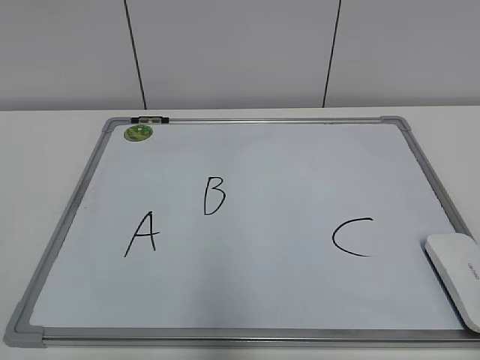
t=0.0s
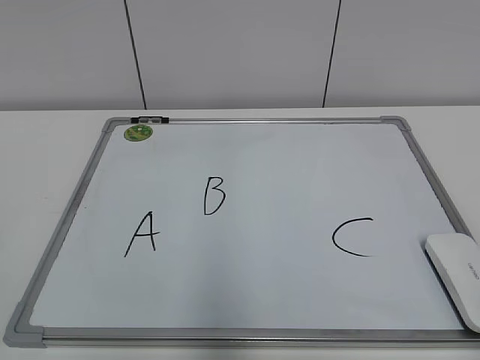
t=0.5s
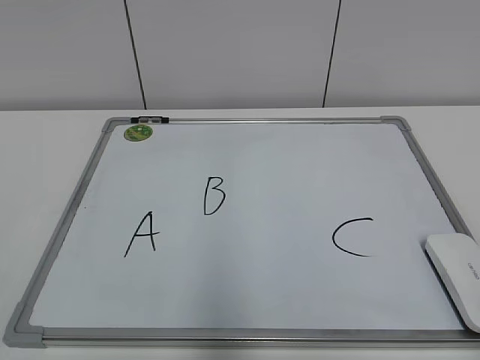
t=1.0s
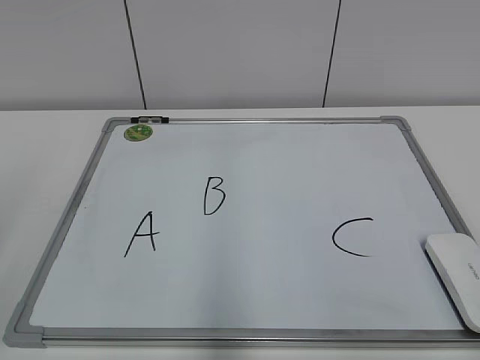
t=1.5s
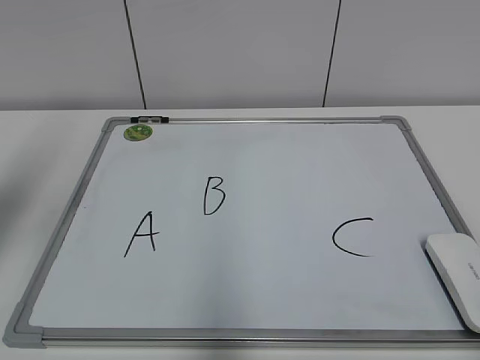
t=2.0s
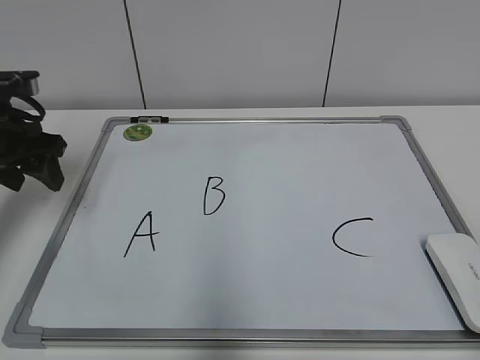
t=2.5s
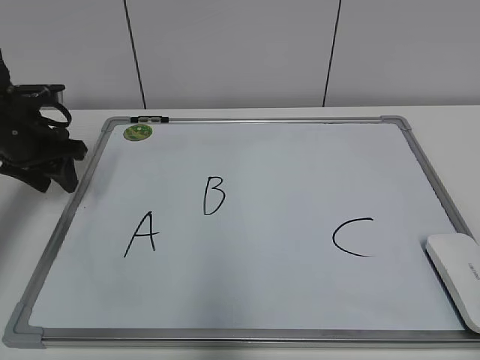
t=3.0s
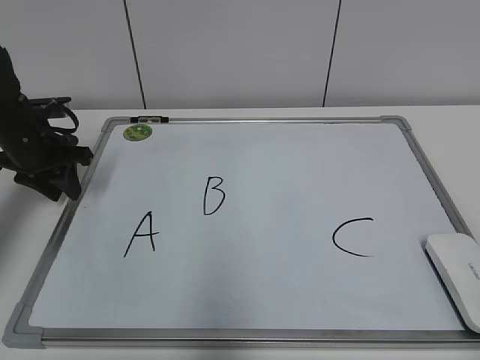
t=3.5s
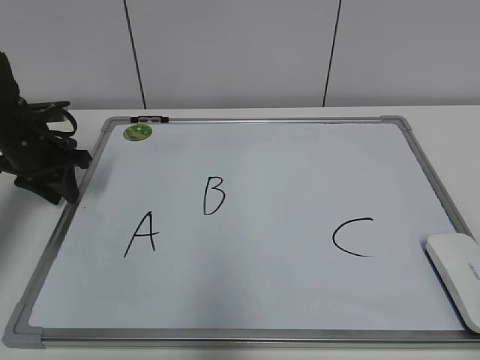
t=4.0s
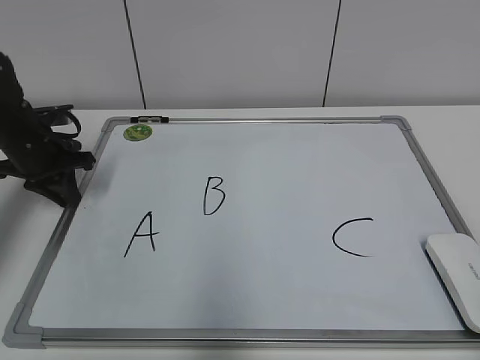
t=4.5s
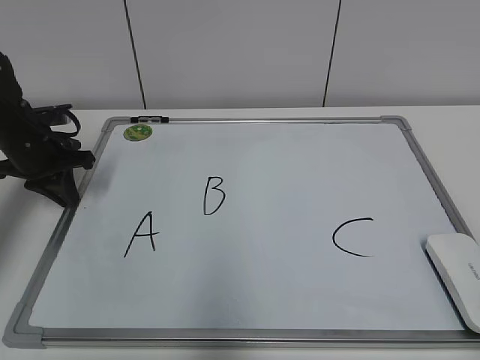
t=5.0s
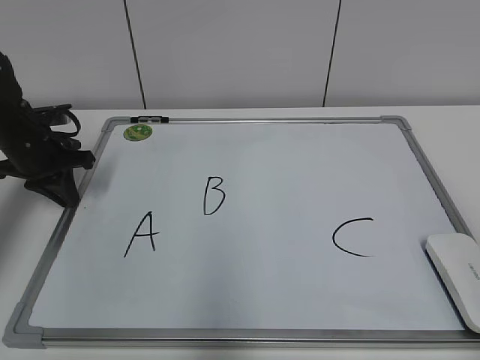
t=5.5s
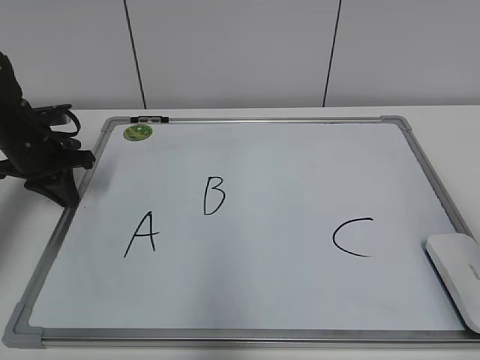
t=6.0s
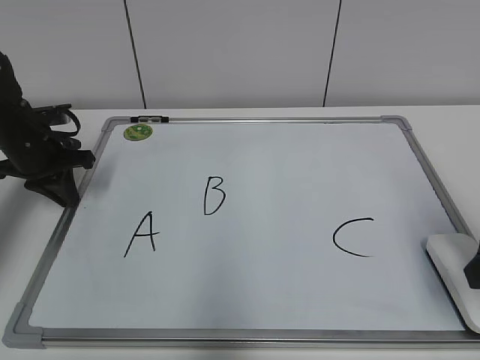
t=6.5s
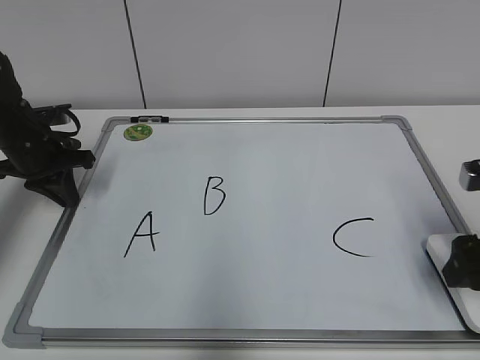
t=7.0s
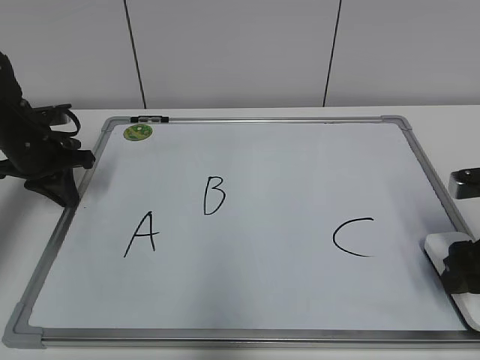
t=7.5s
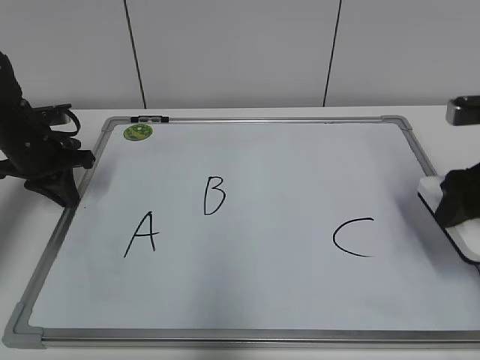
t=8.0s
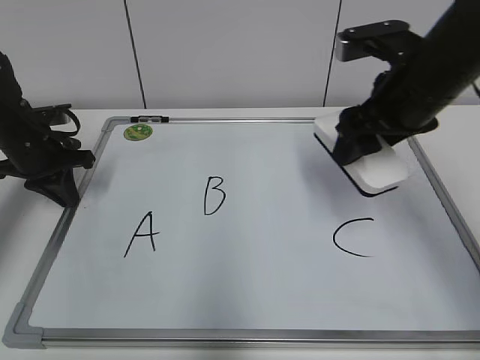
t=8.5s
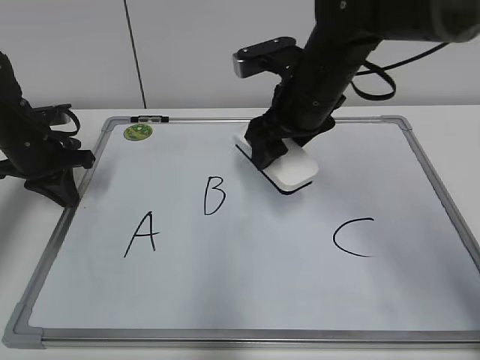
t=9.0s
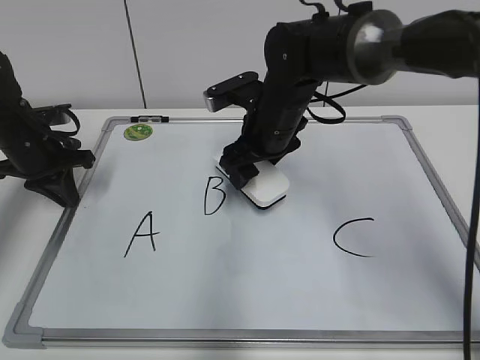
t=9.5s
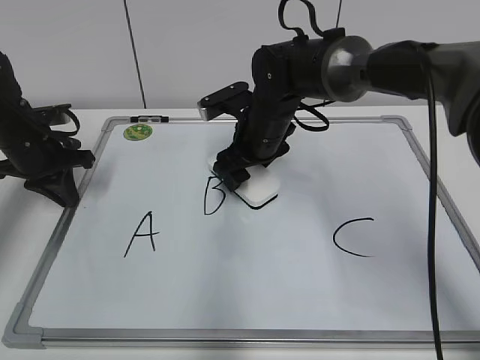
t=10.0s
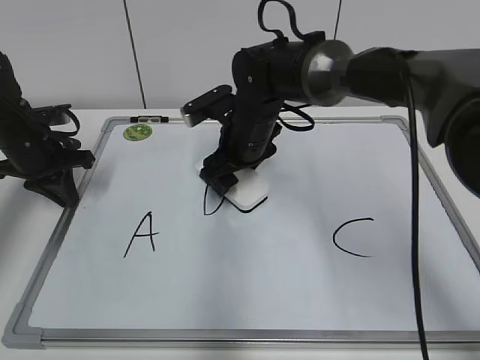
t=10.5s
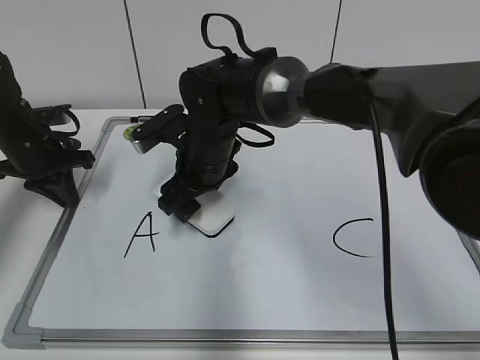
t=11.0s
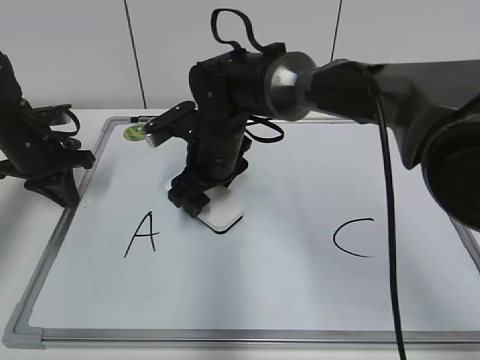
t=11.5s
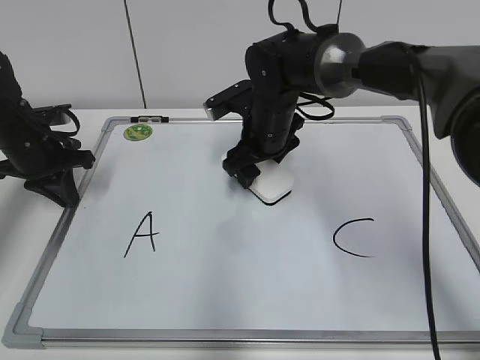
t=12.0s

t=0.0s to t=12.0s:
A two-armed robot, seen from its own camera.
Task of the whole recording: pick up the eraser on the blackboard and erase the letter "B".
Step, t=0.0s to t=4.0s: Hold the drawing board steady with your left hand.
Step, t=4.5s to t=7.0s: Grab the eraser with your right hand.
Step, t=7.5s to t=12.0s: Erase the letter B with your right hand.
t=2.0s to t=4.0s: The left gripper goes some 25 cm downward and forward, and closes up.
t=6.0s to t=8.0s: The right gripper moves forward and downward, approximately 20 cm, and closes.
t=8.0s to t=10.0s: The right gripper shifts approximately 30 cm to the left and forward.
t=10.0s to t=12.0s: The right gripper moves about 10 cm to the left and comes back.

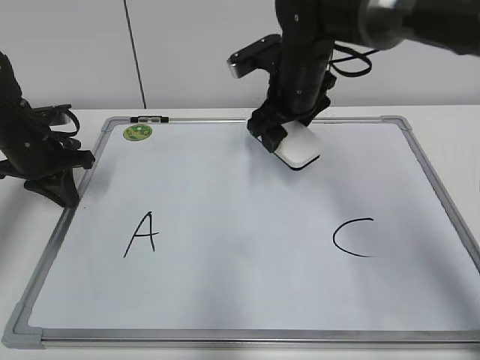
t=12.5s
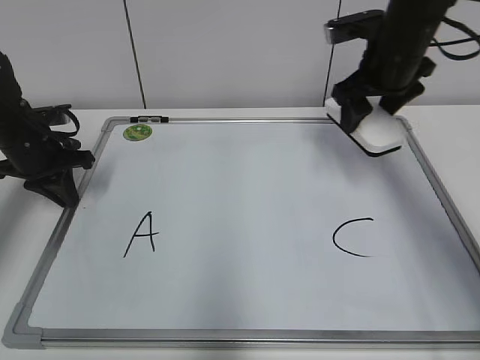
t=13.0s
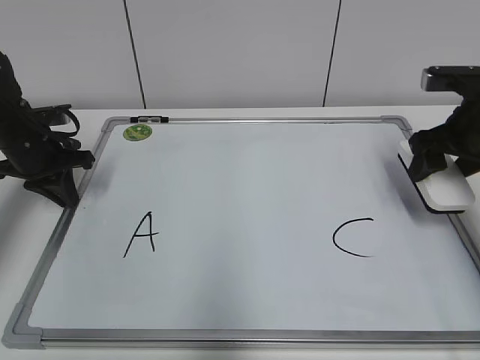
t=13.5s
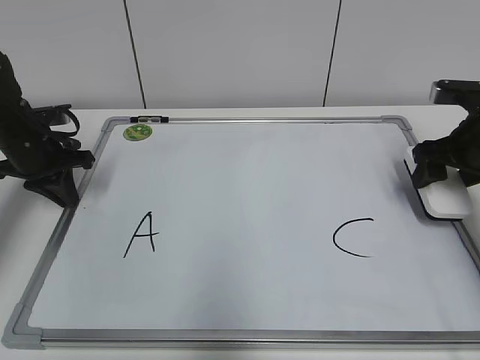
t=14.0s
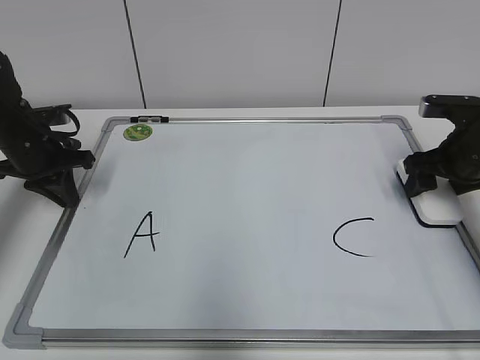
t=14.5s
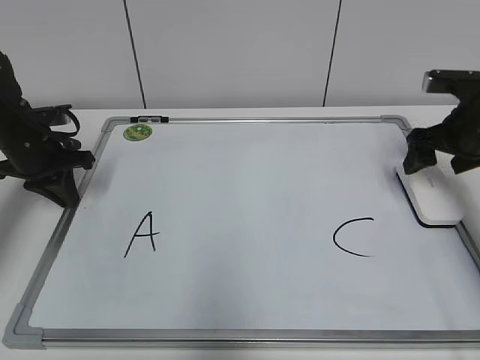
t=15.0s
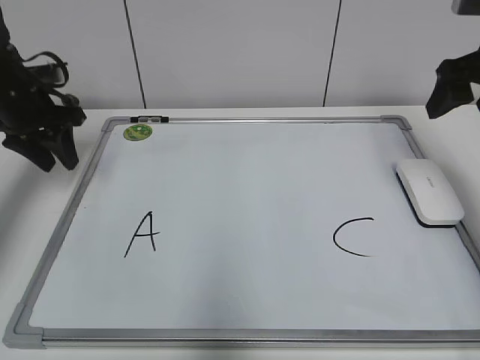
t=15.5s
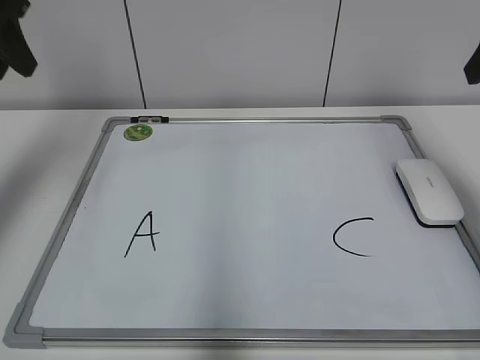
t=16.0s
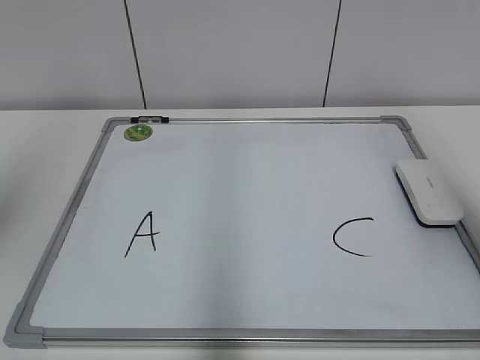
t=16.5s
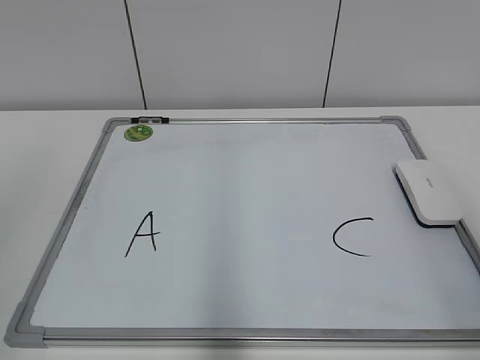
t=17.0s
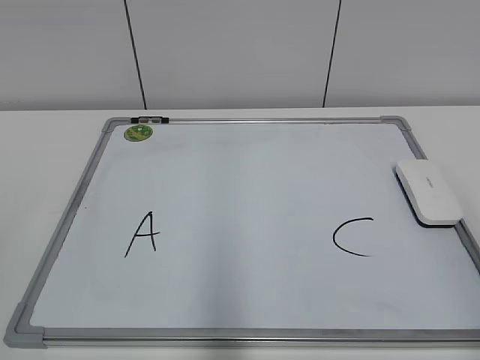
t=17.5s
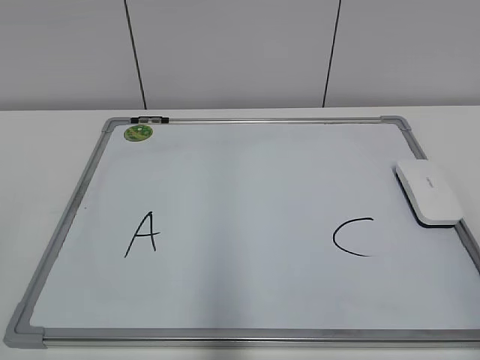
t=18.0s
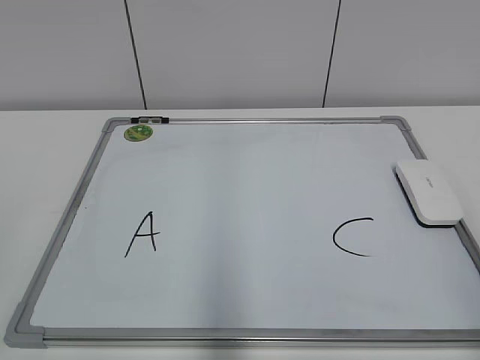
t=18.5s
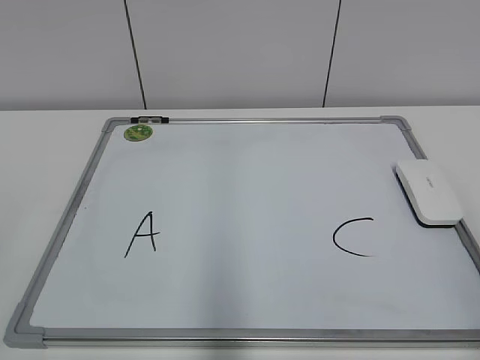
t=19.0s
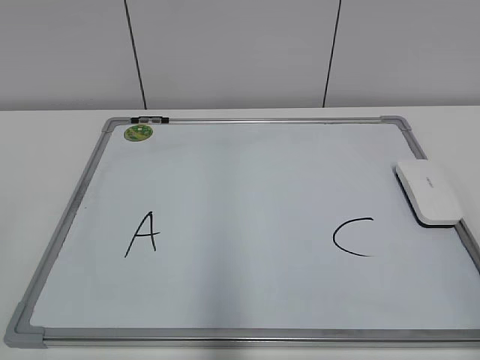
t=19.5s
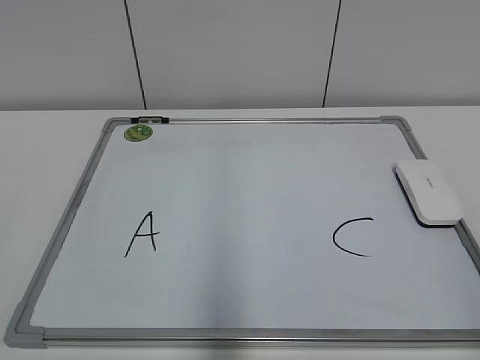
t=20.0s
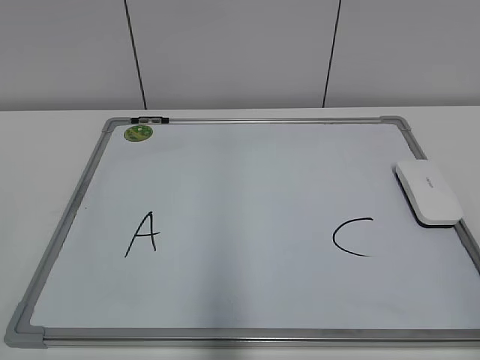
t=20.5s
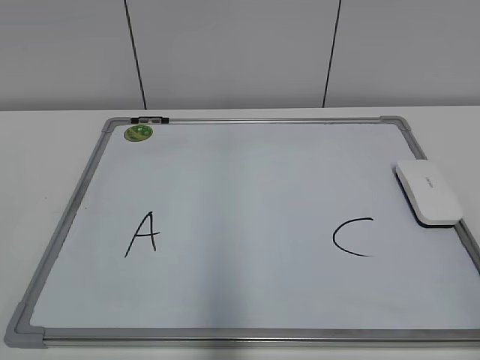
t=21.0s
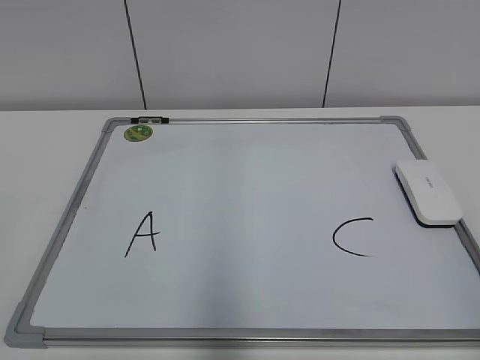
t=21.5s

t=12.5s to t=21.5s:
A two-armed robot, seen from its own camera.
Task of the whole recording: pick up the eraser on the blackboard and erase the letter "B".
Step, t=12.5s to t=14.5s: Put down the eraser with your right hand.
t=12.5s to t=14.5s: The right gripper heads to the right, covering some 20 cm.
t=14.5s to t=17.0s: The grippers both shift backward and upward by about 40 cm. The left gripper opens up, while the right gripper opens up.
